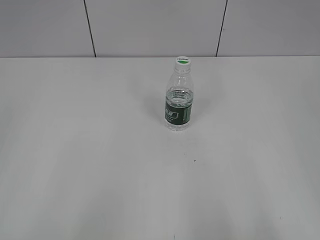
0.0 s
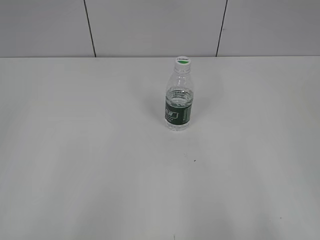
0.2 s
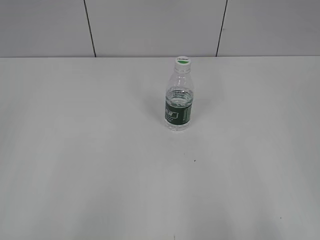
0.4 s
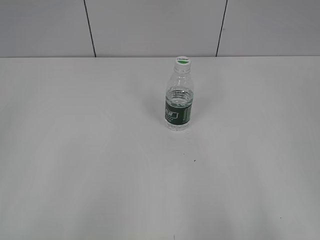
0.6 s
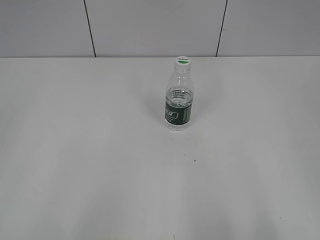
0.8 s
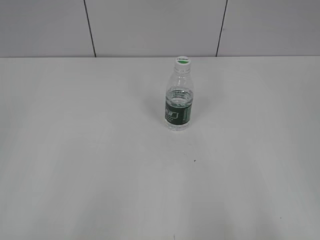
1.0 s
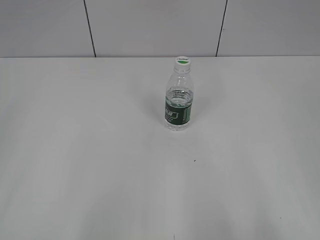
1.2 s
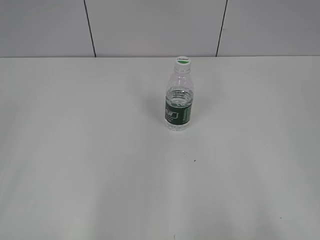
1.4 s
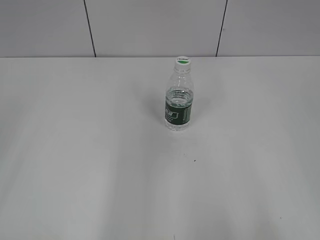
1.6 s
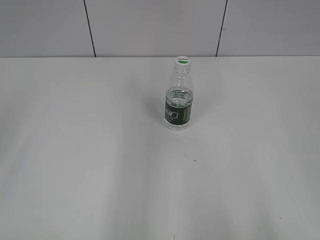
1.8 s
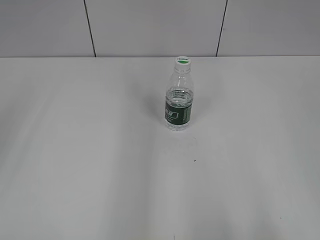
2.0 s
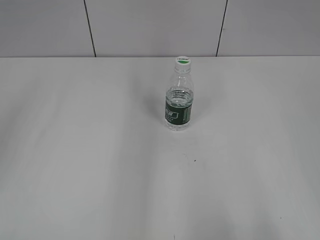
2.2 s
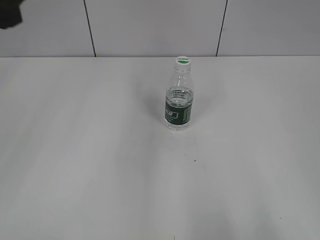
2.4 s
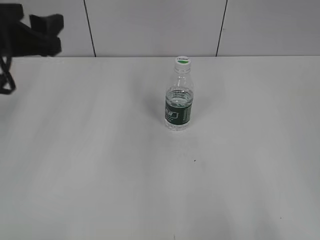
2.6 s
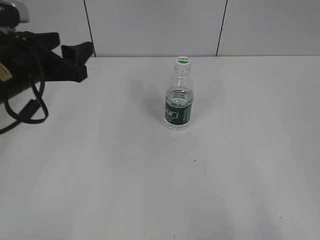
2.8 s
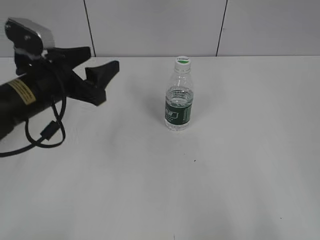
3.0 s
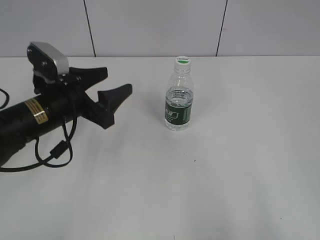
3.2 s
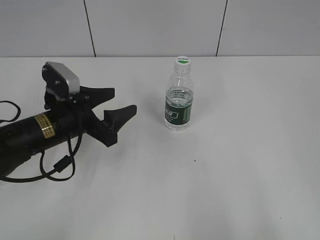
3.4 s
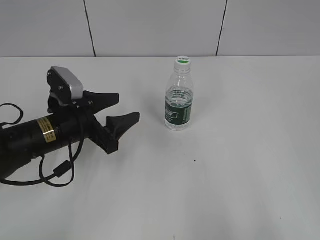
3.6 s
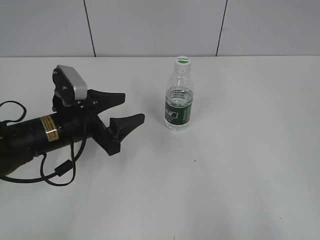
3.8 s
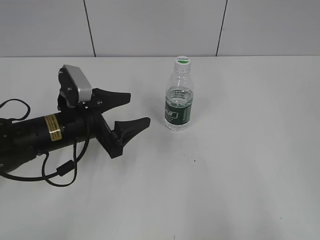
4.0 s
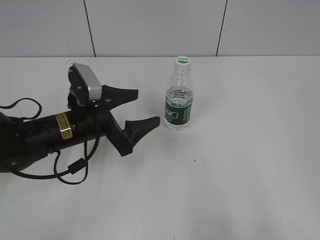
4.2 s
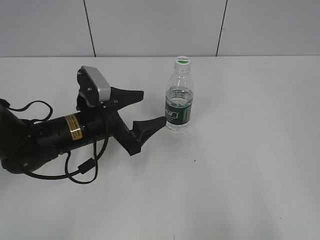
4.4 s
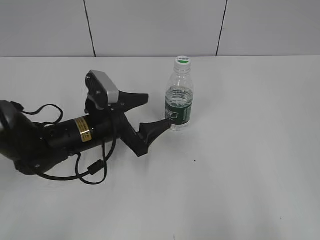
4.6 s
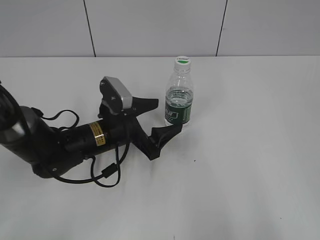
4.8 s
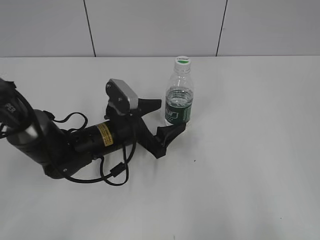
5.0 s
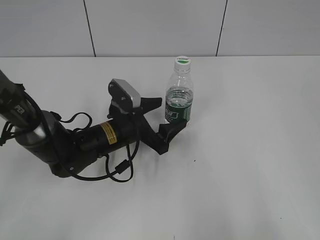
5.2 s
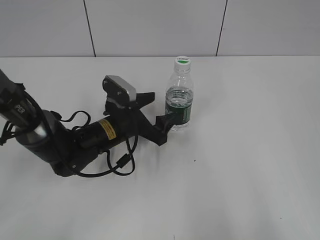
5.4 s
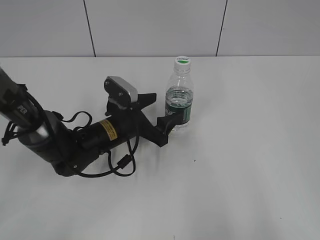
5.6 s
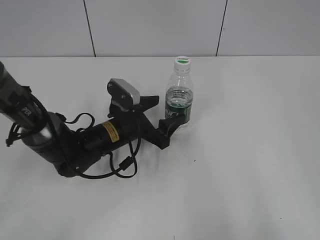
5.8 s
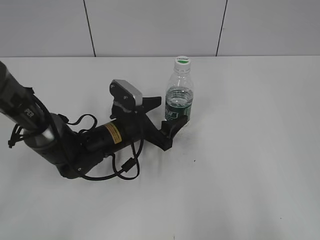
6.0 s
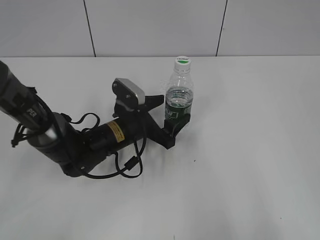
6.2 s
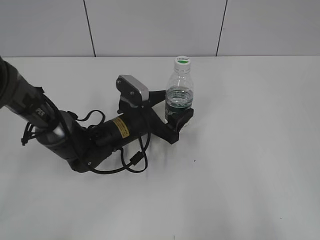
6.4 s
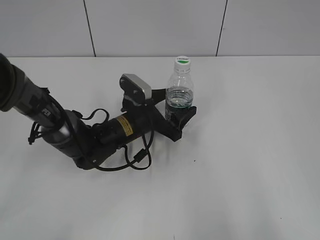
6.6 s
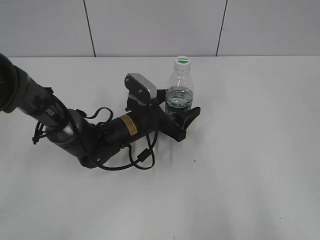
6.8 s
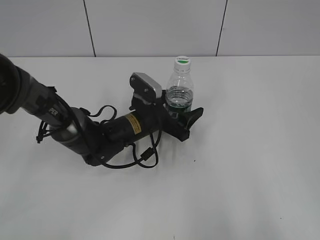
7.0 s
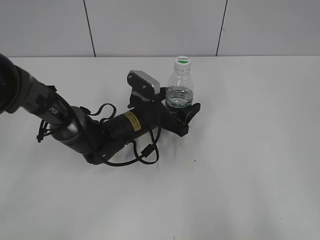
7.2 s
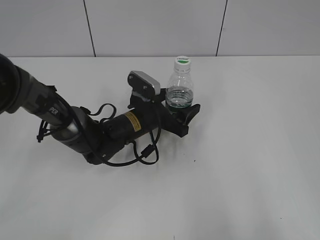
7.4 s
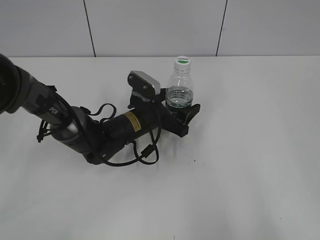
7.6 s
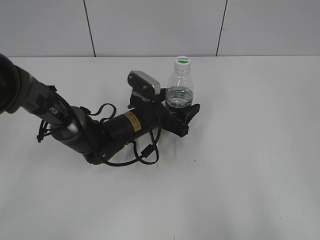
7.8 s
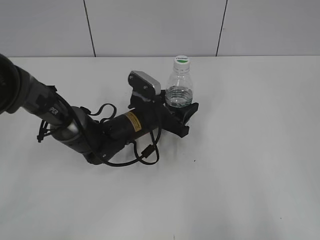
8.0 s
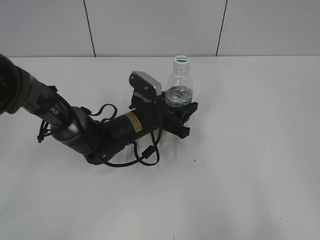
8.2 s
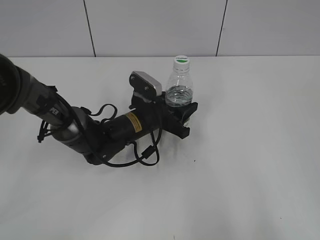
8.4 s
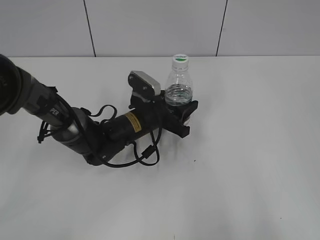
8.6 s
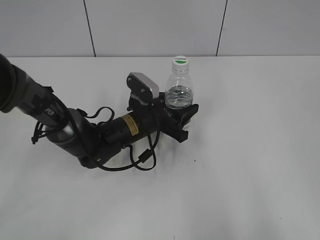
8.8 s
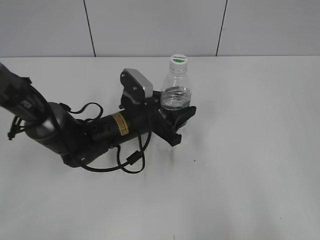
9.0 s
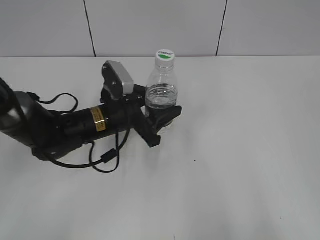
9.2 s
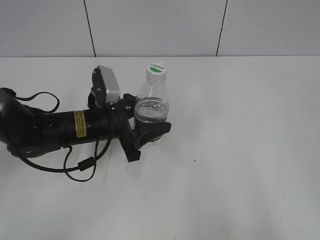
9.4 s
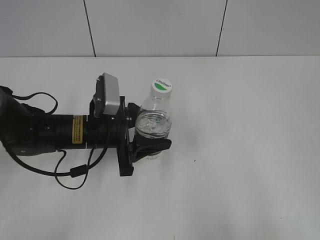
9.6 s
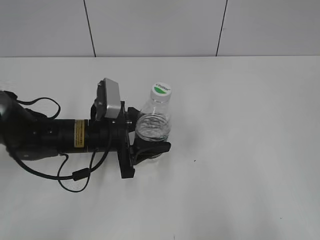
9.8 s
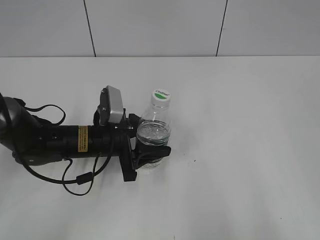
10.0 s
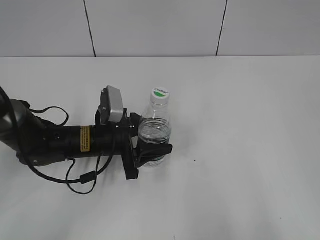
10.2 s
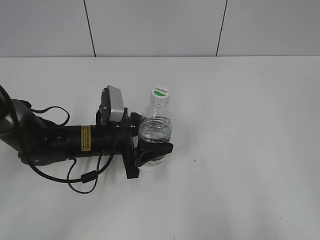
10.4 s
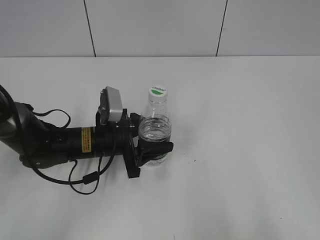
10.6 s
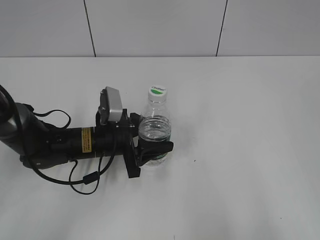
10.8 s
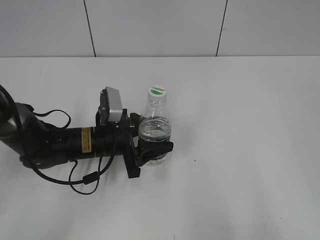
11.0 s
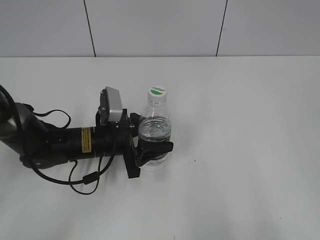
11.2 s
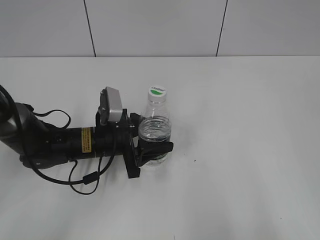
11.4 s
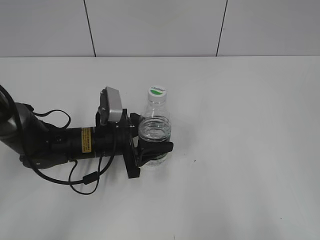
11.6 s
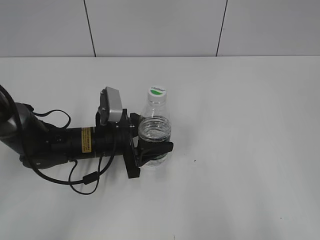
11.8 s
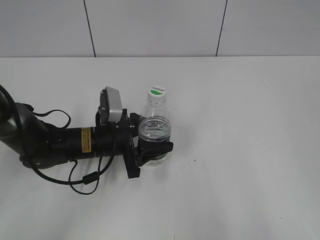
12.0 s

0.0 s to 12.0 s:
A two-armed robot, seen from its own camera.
Step, 0.0 to 8.4 s: Grasp the bottle and move it to the center of the table with the left gripper.
1.6 to 3.0 s: The left gripper moves forward, downward and to the right, some 30 cm.
3.0 to 4.4 s: The left gripper shifts roughly 10 cm downward and to the right, and opens.
4.4 to 6.0 s: The left gripper travels downward and to the right by some 5 cm.
6.0 to 7.6 s: The grippers make only small movements.
7.6 to 9.0 s: The left gripper closes its fingers.
9.0 to 10.4 s: The left gripper shifts approximately 5 cm to the left.
10.4 to 12.0 s: Both grippers stay about where they are.

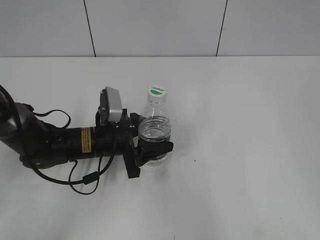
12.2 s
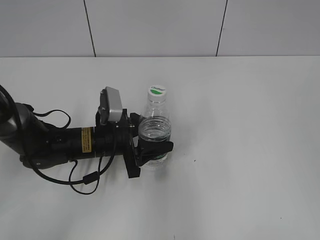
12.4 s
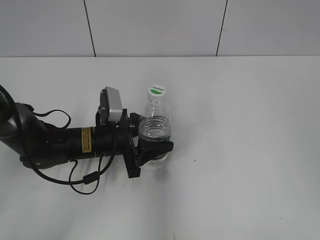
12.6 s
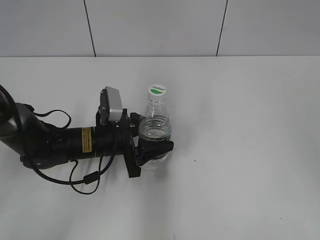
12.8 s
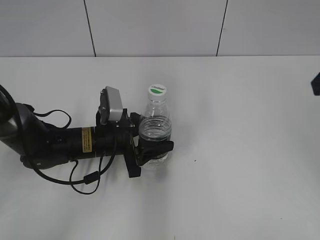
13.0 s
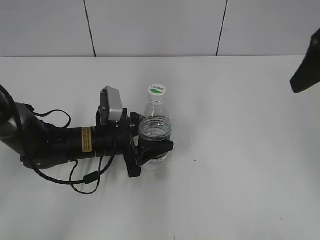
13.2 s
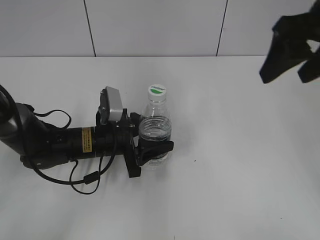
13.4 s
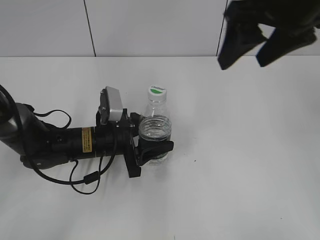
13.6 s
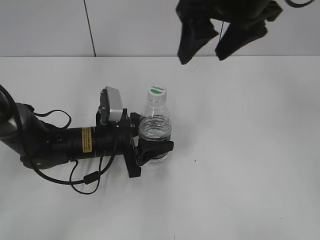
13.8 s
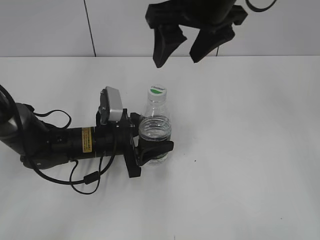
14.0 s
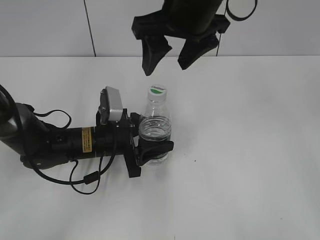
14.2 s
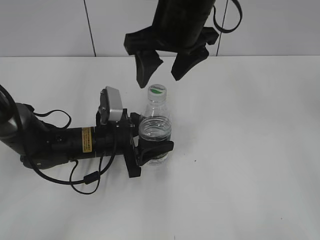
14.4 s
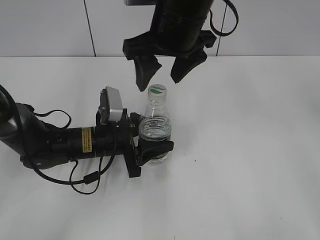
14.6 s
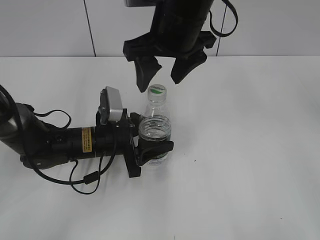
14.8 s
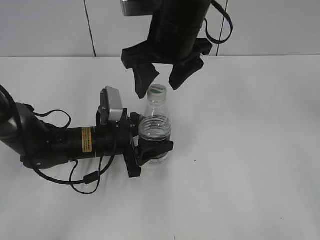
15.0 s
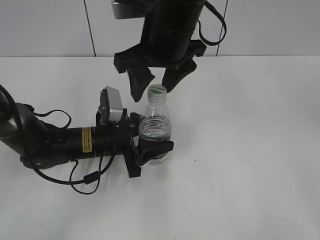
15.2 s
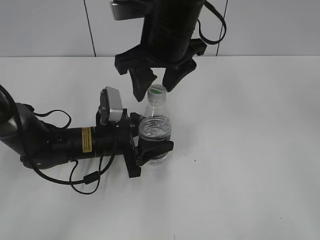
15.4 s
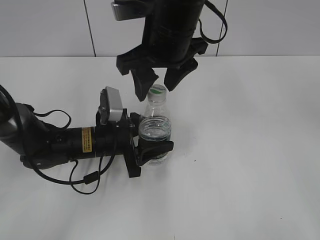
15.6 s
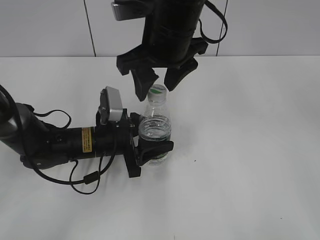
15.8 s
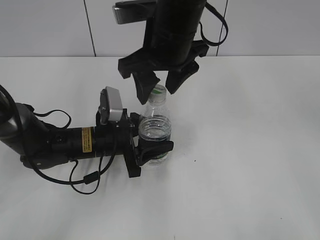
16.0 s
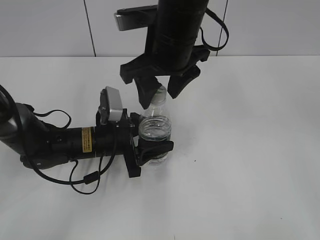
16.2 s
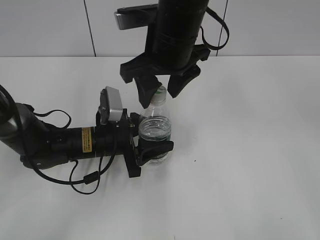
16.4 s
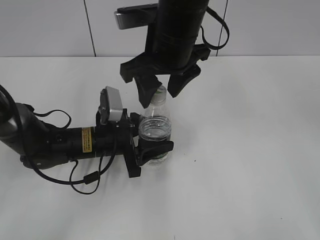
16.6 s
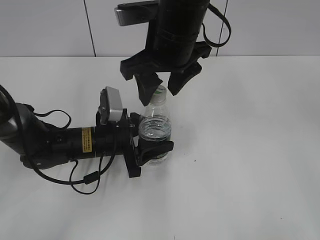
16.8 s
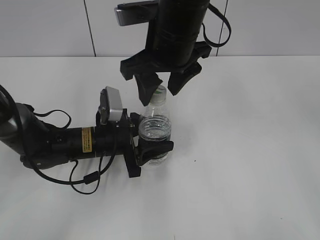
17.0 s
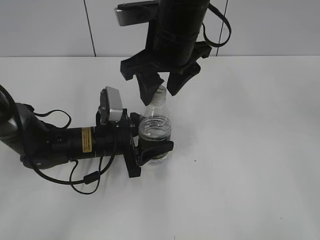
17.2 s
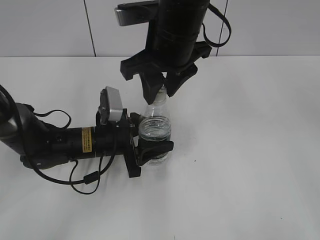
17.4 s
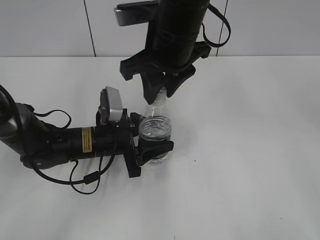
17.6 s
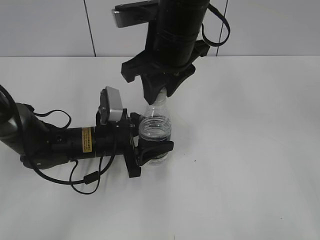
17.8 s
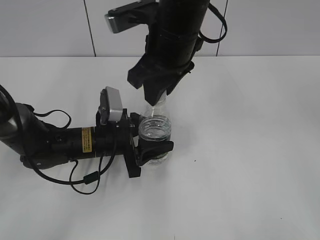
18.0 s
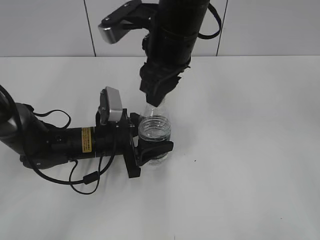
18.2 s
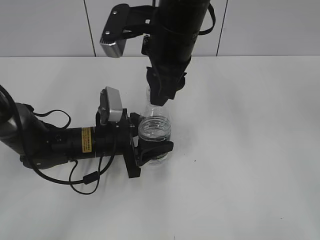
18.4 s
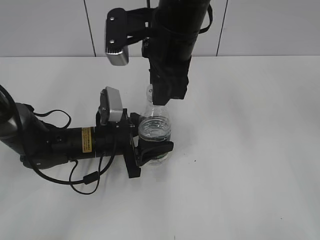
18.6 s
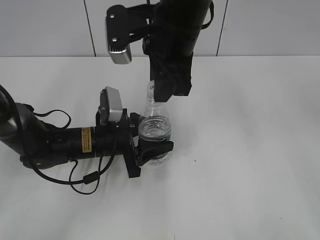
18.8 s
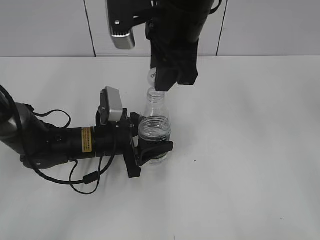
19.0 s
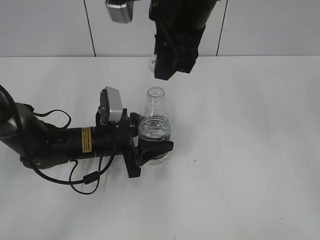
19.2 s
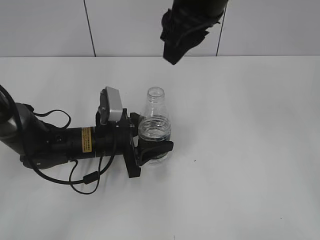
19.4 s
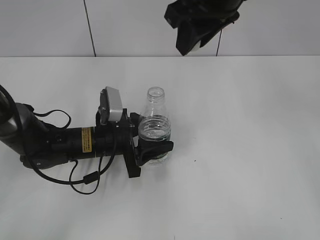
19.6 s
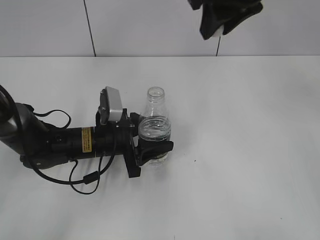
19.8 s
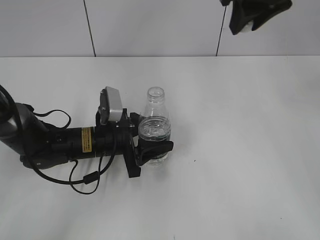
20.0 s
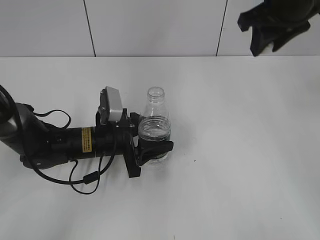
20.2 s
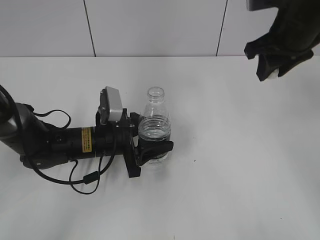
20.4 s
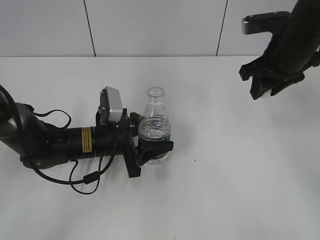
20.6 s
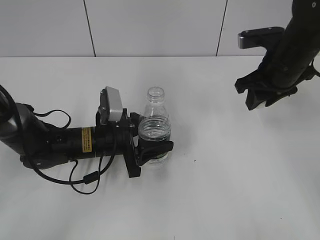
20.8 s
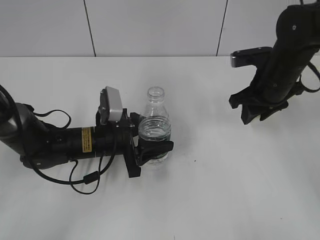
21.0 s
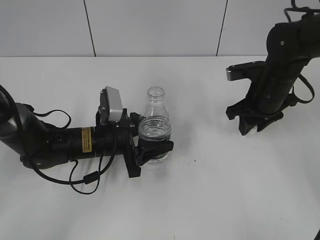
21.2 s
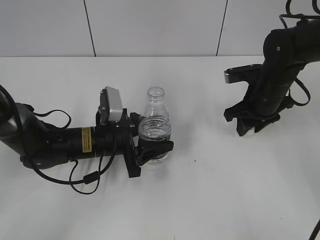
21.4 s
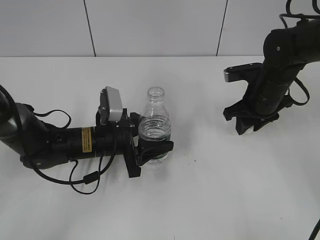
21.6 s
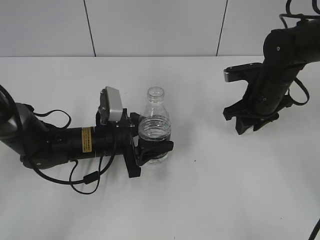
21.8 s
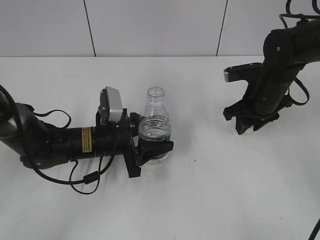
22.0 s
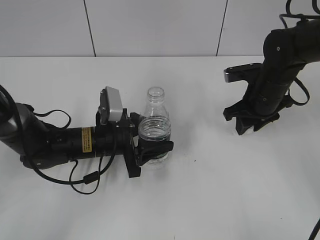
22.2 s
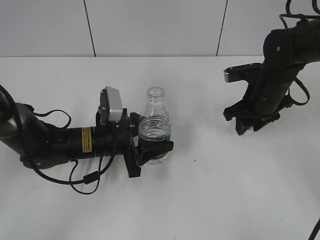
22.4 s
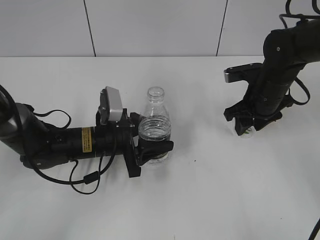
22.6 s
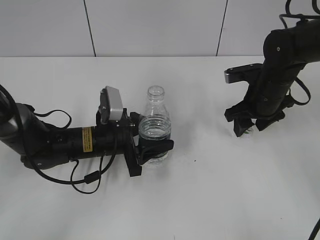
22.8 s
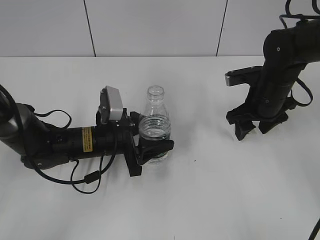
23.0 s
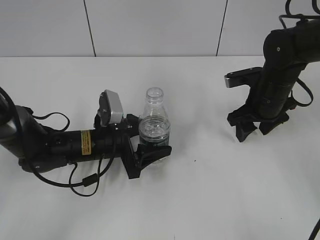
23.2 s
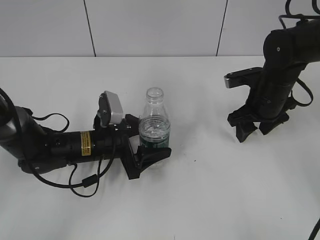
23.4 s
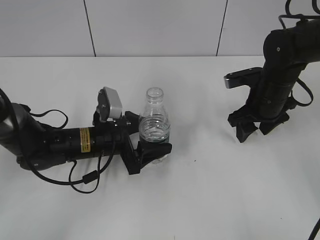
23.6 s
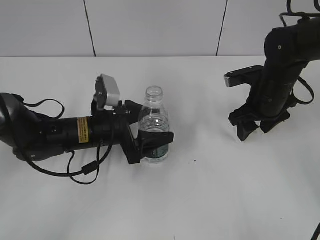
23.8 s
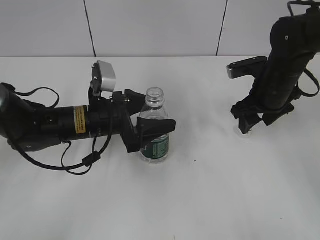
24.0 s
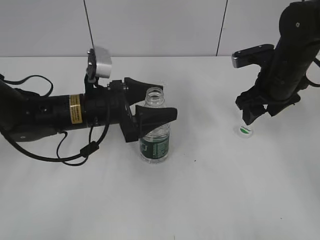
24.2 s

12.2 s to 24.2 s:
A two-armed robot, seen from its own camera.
Step, 13.0 to 19.4 s: Unscrew the bottle cap with the right gripper while holding the bottle with the left gripper.
Step, 19.6 to 22.8 s: Place the bottle cap on the table with the right gripper.
12.2 to 13.8 s: The right gripper shifts about 35 cm forward and to the left.
13.8 to 15.2 s: The right gripper travels to the left and downward by roughly 10 cm.
15.2 to 16.6 s: Both grippers stay about where they are.
16.6 to 18.2 s: The right gripper closes.
18.2 to 19.8 s: The right gripper heads to the right and upward, covering roughly 10 cm.
19.8 to 21.2 s: The right gripper moves downward and to the right, some 25 cm.
21.2 to 22.6 s: The two grippers keep their place.
22.6 to 24.2 s: The left gripper shifts some 5 cm upward, and opens its fingers. The right gripper opens its fingers.
